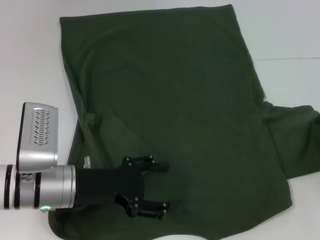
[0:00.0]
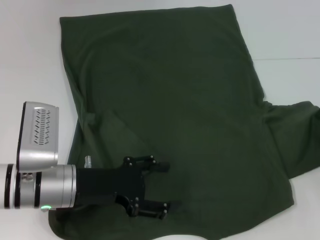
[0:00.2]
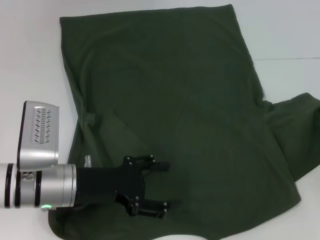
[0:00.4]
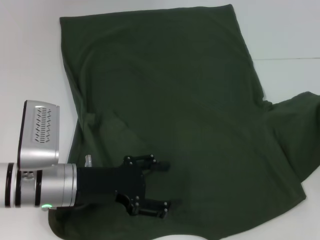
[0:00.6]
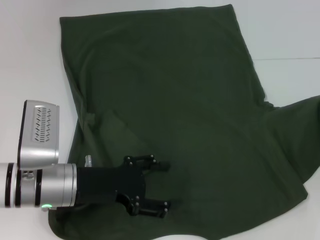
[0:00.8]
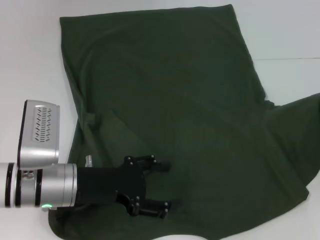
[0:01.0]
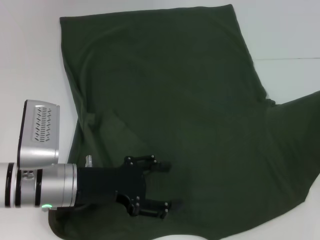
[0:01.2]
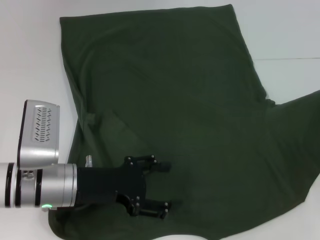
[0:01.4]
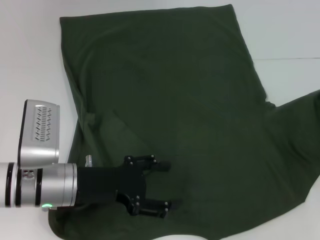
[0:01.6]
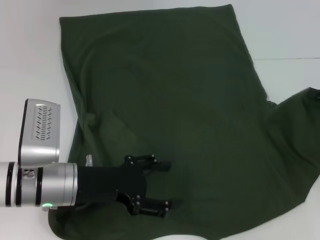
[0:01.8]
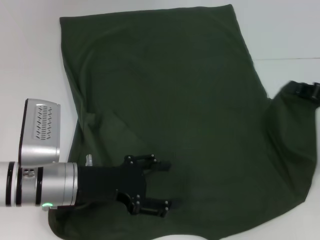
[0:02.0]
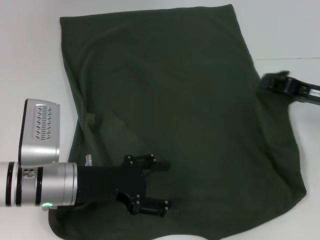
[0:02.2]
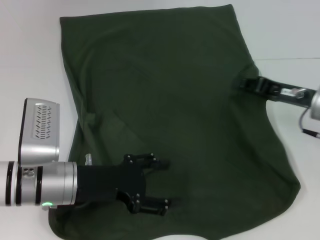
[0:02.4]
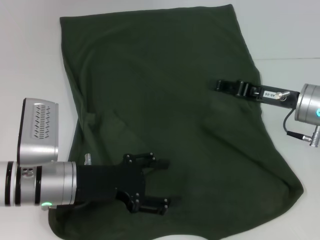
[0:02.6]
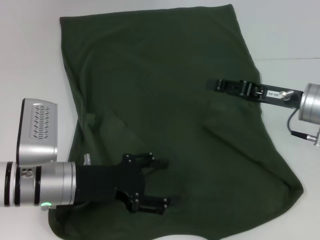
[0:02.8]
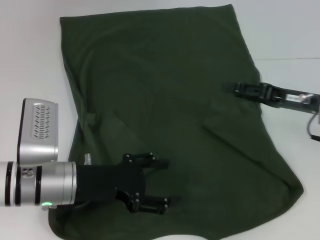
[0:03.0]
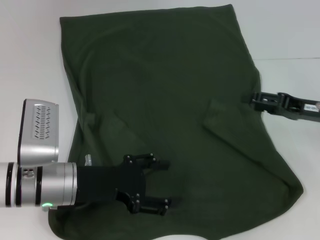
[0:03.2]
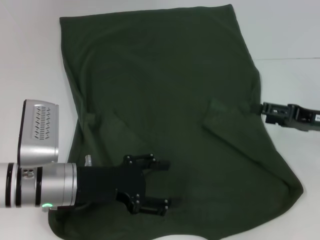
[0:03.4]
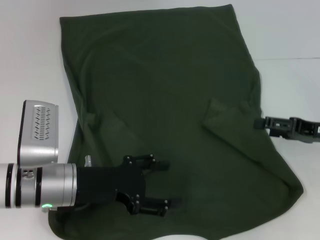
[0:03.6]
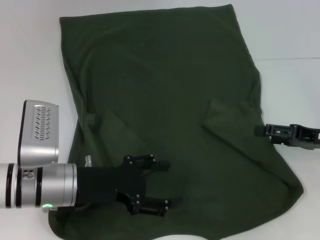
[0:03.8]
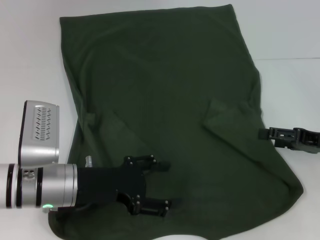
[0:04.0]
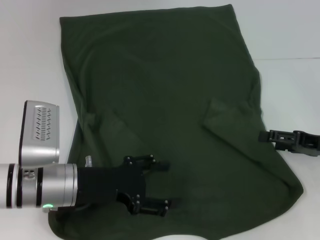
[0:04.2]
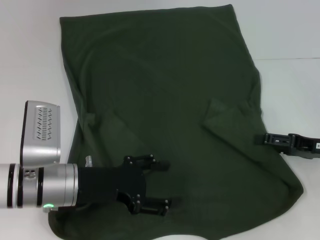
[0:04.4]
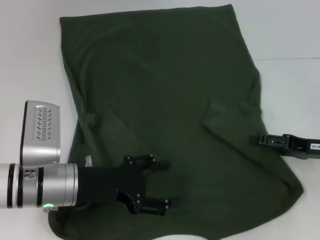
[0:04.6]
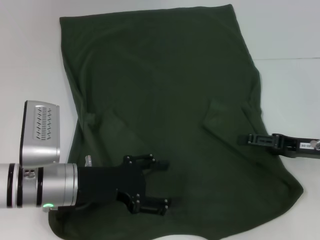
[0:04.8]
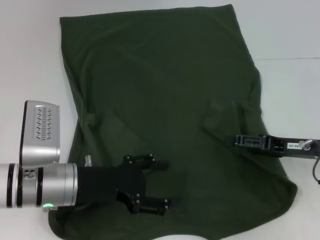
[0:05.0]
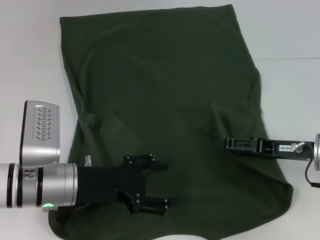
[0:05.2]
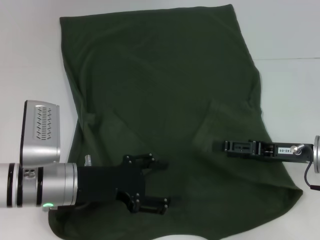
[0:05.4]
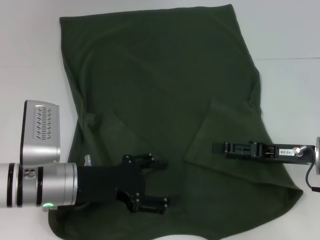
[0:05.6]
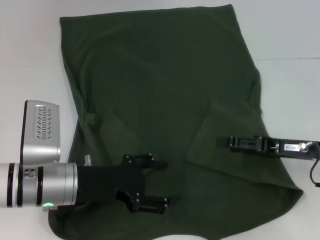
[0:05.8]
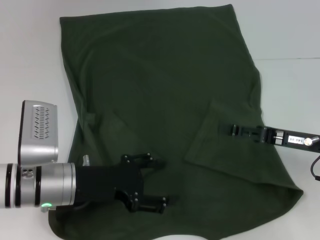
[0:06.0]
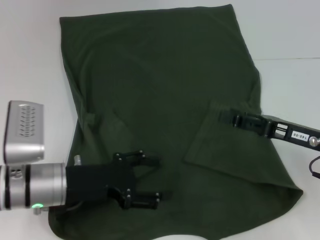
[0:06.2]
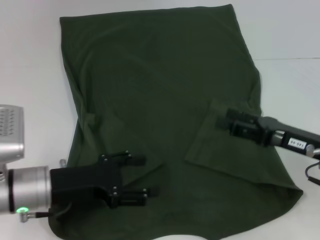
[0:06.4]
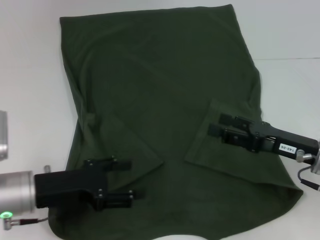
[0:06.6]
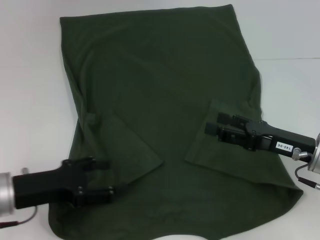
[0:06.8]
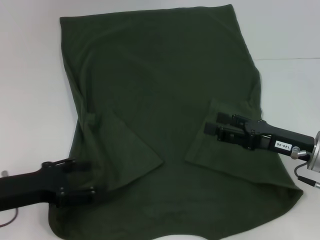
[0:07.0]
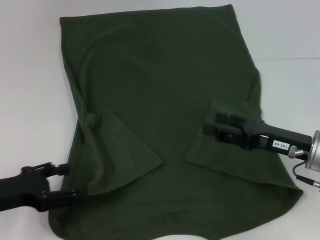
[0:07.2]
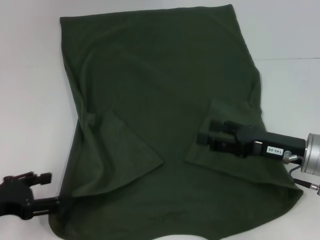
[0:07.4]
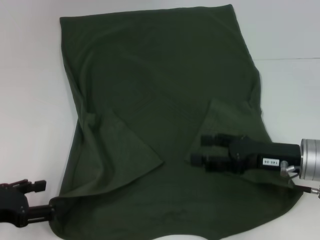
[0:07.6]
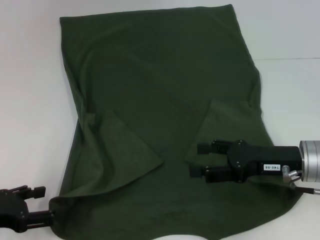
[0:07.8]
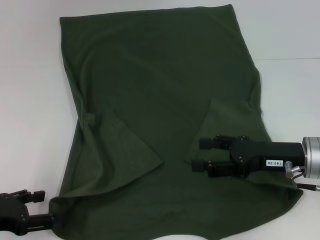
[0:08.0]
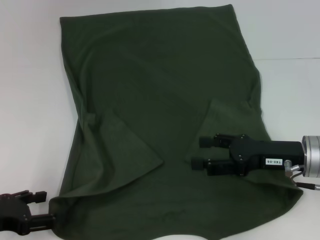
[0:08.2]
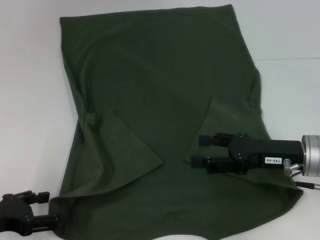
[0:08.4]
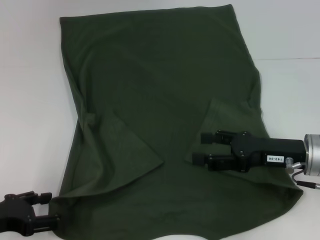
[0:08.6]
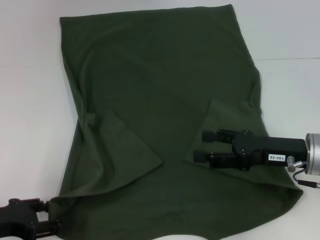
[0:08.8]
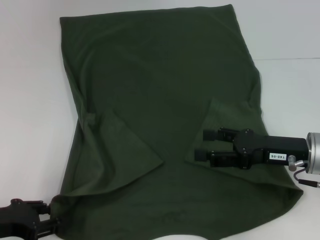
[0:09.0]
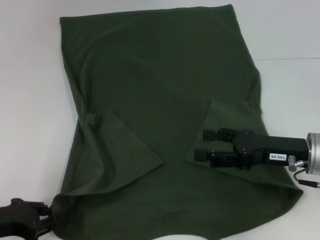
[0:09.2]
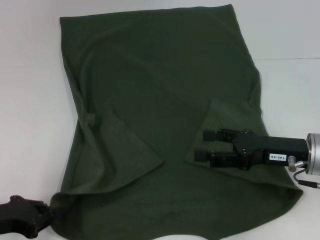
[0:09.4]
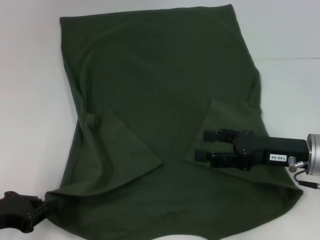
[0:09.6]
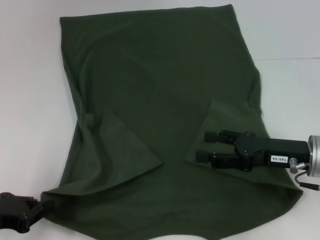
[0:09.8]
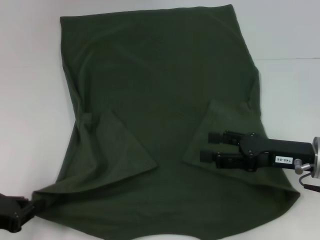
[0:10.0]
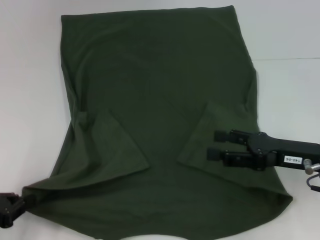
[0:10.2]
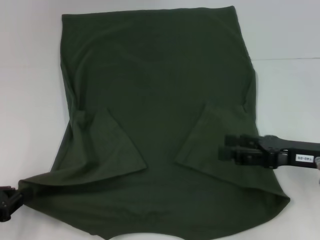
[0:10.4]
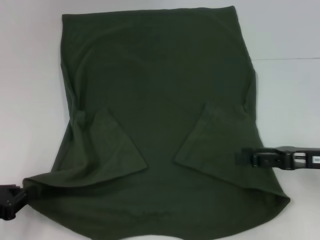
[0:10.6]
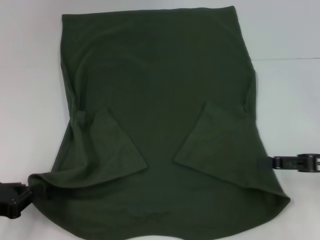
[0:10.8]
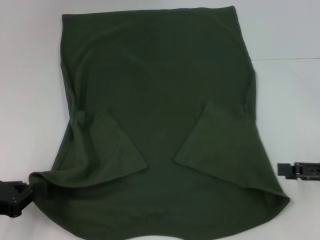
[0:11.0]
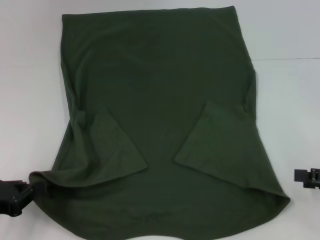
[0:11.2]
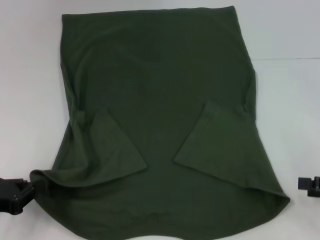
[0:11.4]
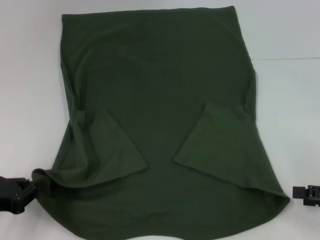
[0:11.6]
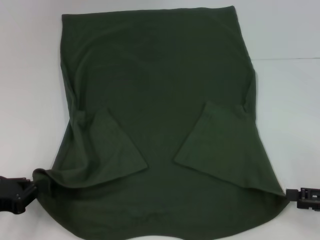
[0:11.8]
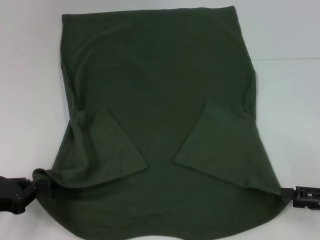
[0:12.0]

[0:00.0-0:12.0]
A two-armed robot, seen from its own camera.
Step, 0:00.0 to 0:03.2: Fold the bottom right sleeve with your right hand.
Step, 0:03.4 to 0:10.6: Grab the bottom left corner with your left hand.
0:00.0 to 0:01.6: The grippers stay close to where they were, moving slightly.
0:01.6 to 0:03.0: The right gripper heads to the left, covering approximately 10 cm, and opens.
0:03.0 to 0:04.4: The right gripper shifts by roughly 5 cm, and opens.
0:04.4 to 0:06.0: The right gripper shifts about 5 cm to the left.
0:06.0 to 0:07.6: The left gripper goes approximately 15 cm to the left and backward.
0:07.6 to 0:09.0: The grippers move only a little.
0:09.0 to 0:10.4: The left gripper closes its fingers.
0:10.4 to 0:12.0: The right gripper moves to the right and backward, some 10 cm.

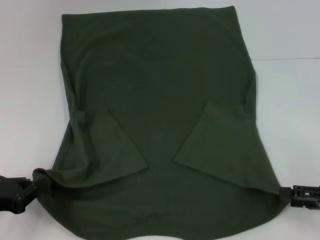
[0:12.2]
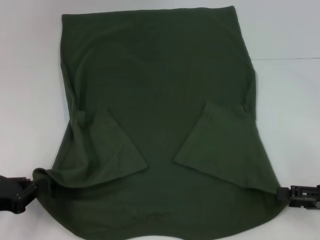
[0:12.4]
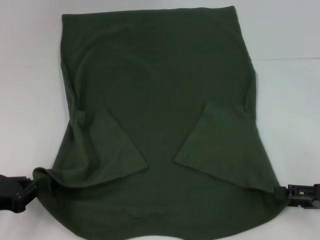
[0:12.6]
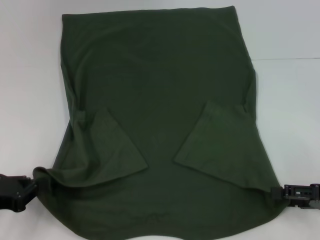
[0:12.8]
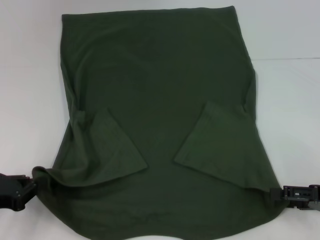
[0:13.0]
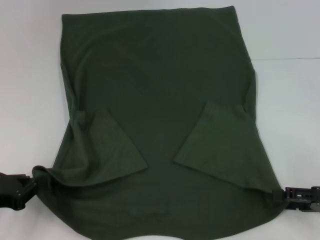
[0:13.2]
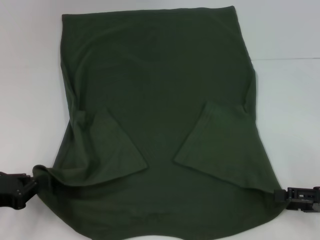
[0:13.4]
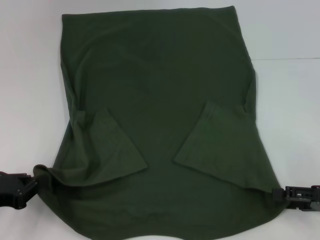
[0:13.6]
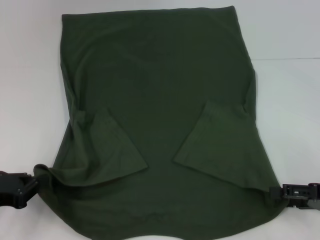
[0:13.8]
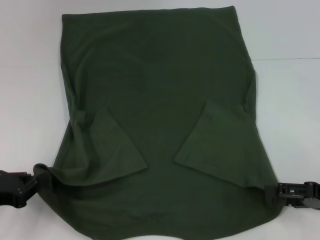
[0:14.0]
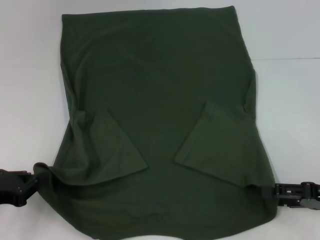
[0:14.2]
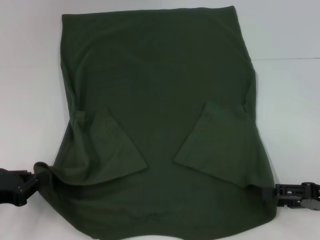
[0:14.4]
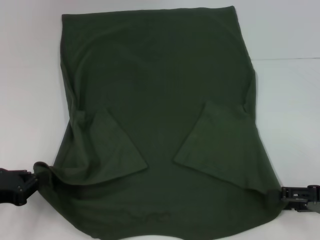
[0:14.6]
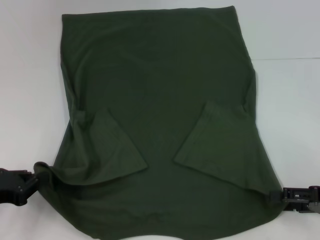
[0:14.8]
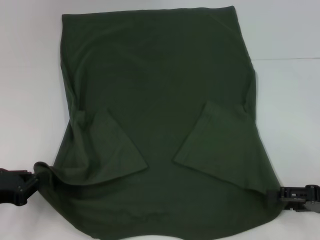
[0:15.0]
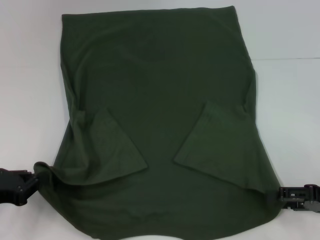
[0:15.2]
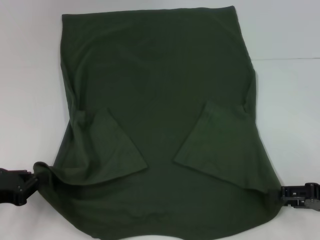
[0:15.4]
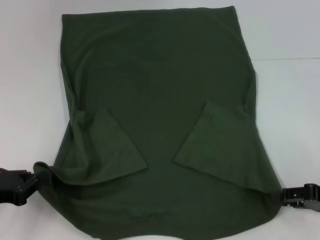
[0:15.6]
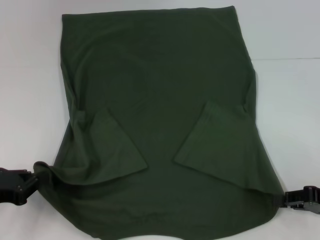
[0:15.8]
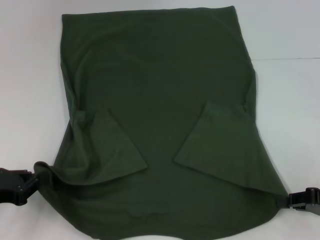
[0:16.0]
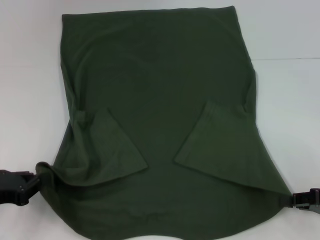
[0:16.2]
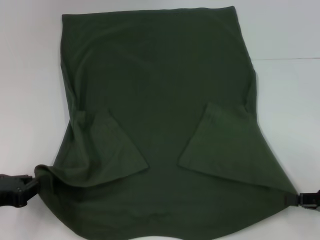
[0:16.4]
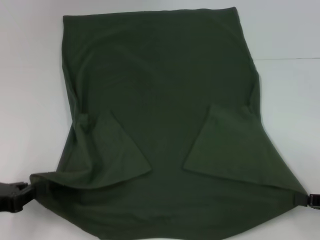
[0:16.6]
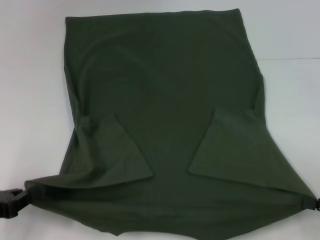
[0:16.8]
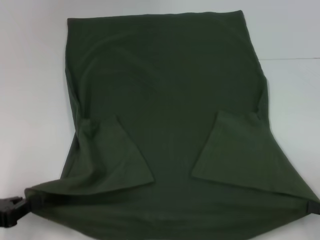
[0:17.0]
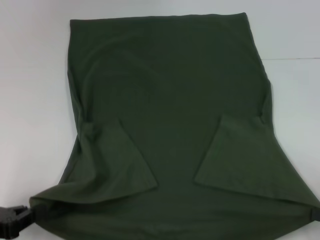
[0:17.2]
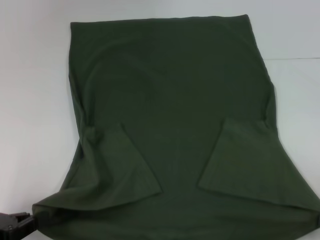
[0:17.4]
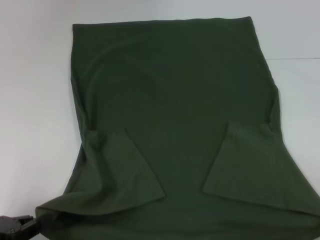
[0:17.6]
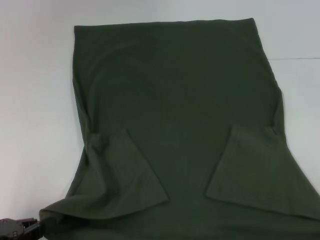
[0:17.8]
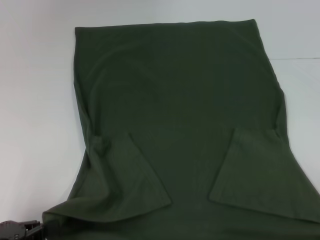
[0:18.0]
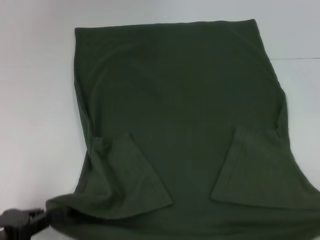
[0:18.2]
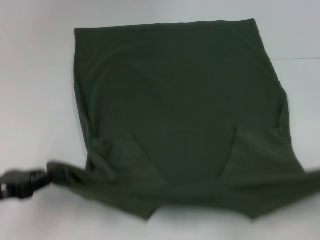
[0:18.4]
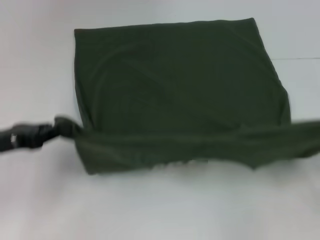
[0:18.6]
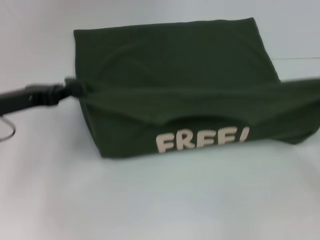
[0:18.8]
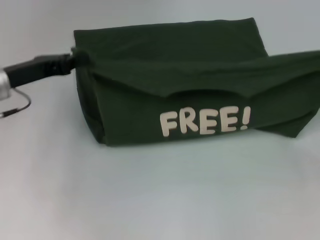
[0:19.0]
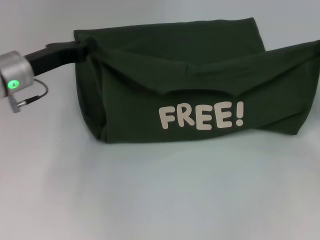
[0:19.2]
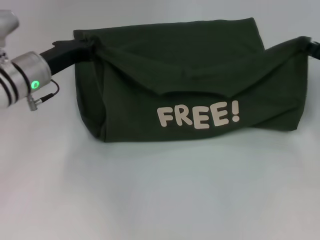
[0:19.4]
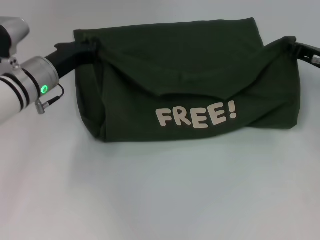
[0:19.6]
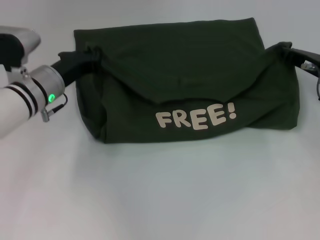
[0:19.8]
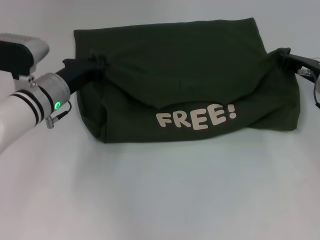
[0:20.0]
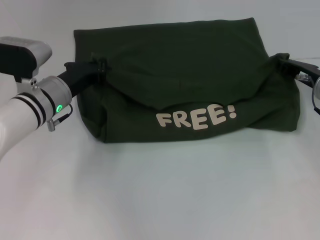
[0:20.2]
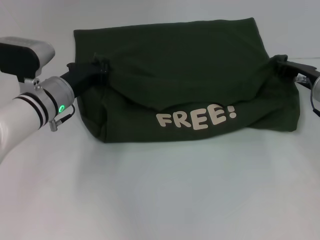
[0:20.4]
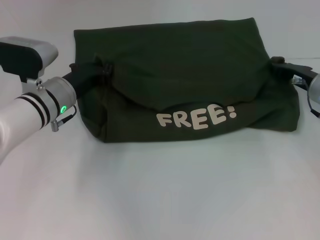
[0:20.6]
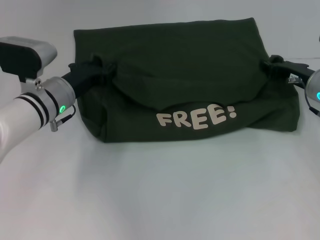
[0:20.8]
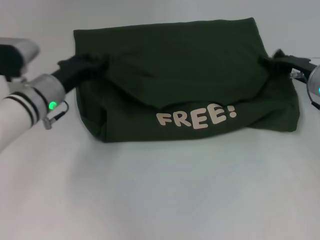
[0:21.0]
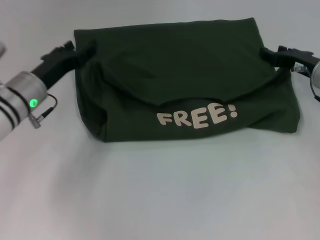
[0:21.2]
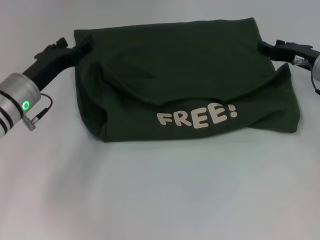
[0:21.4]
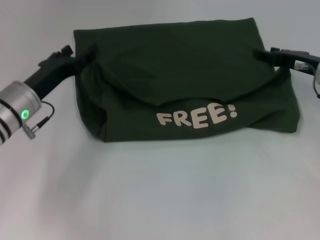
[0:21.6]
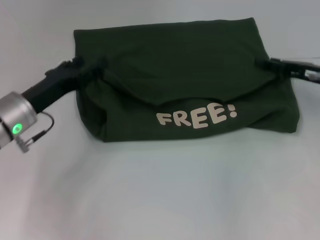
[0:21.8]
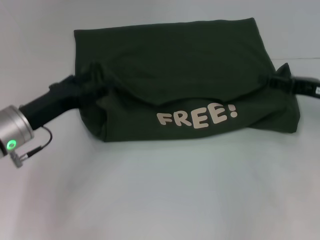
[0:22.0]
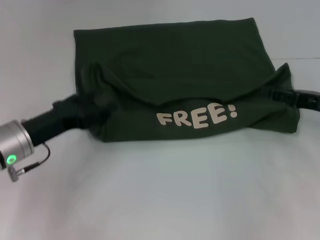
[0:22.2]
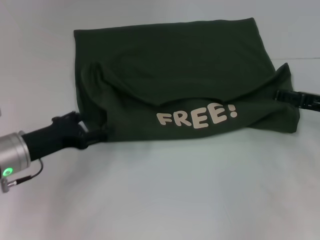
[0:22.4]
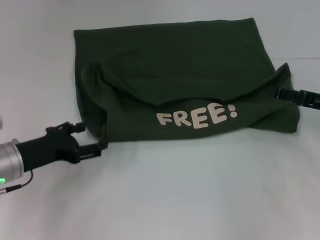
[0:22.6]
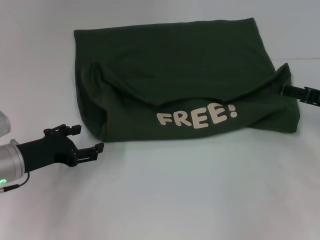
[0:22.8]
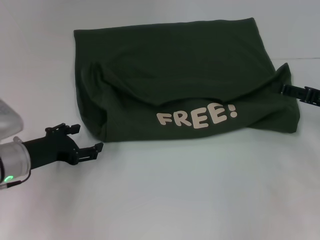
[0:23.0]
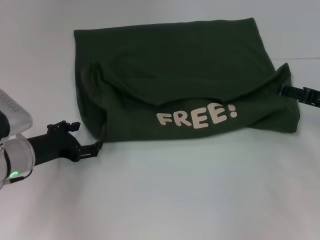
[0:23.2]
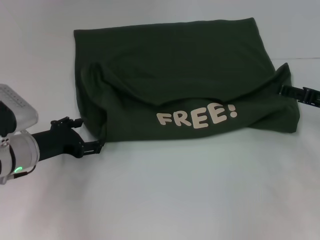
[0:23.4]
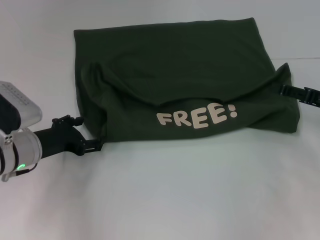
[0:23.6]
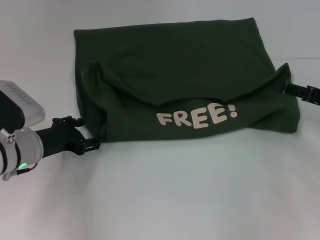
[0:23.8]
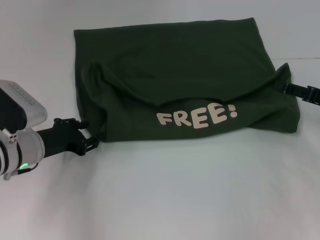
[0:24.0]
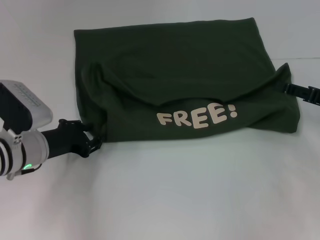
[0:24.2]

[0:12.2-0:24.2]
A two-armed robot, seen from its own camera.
Step, 0:12.2 to 0:16.2: Grab the bottom right corner with your right hand.
Step, 0:16.4 to 0:21.4: Fold the clothes with your left hand.
Step, 0:16.4 to 0:21.4: Fold the clothes with your right hand.
0:12.2 to 0:15.2: The grippers make only small movements.
0:15.2 to 0:16.6: The right gripper closes its fingers.
0:16.6 to 0:18.2: The right gripper shifts approximately 10 cm backward.
0:18.2 to 0:19.8: The left gripper travels forward and to the right by roughly 25 cm, while the right gripper heads forward and to the left, covering some 30 cm.
0:19.8 to 0:21.2: The right gripper opens up. Meanwhile the left gripper opens its fingers.
0:21.2 to 0:22.6: The left gripper is displaced backward by approximately 10 cm, and opens up. The right gripper heads backward and to the right, covering roughly 10 cm.
0:22.6 to 0:24.2: The left gripper closes its fingers.
